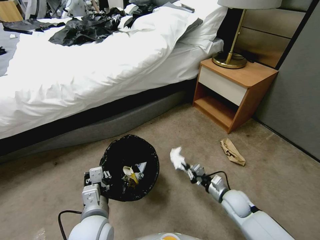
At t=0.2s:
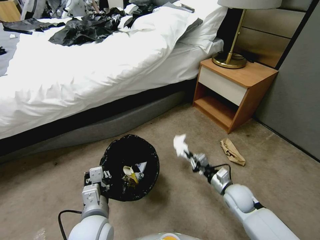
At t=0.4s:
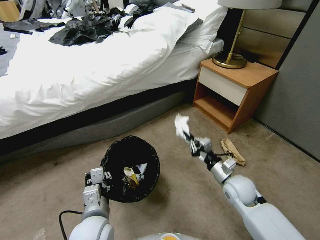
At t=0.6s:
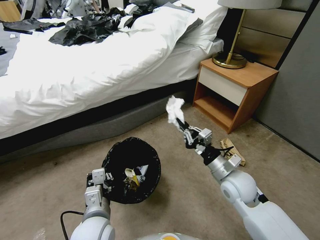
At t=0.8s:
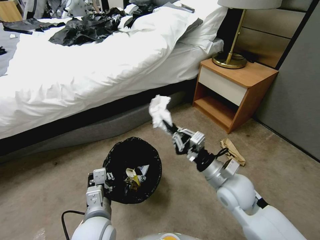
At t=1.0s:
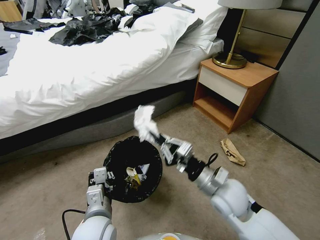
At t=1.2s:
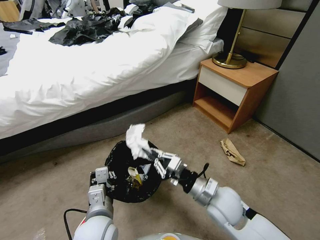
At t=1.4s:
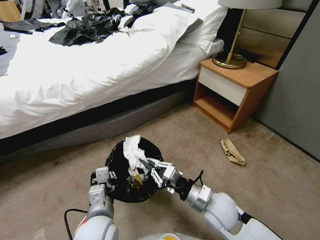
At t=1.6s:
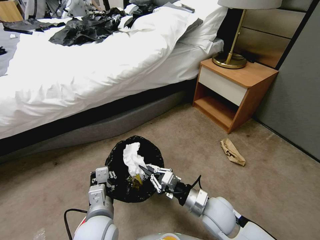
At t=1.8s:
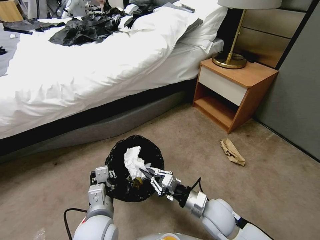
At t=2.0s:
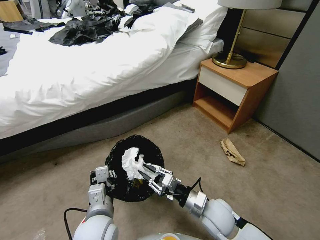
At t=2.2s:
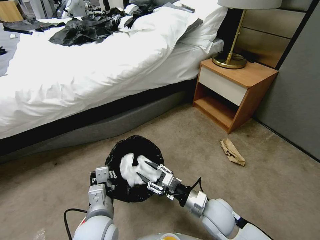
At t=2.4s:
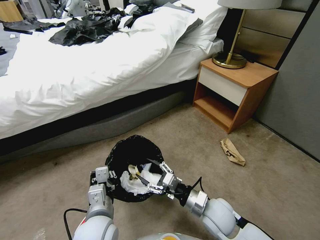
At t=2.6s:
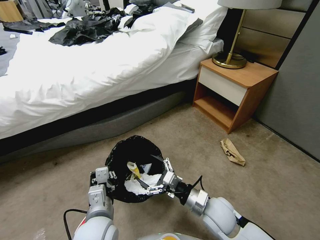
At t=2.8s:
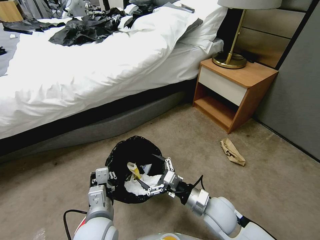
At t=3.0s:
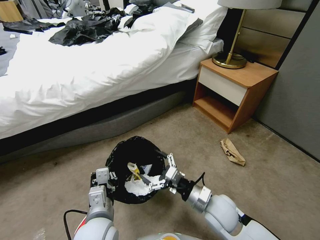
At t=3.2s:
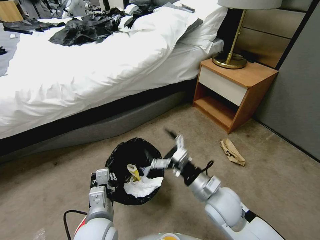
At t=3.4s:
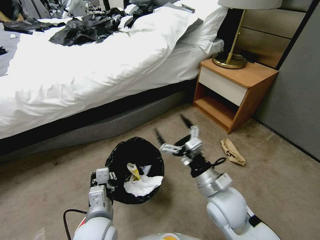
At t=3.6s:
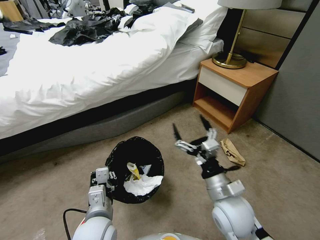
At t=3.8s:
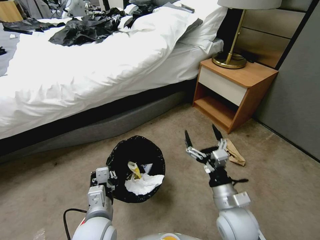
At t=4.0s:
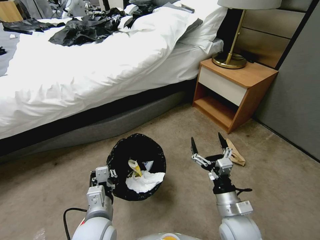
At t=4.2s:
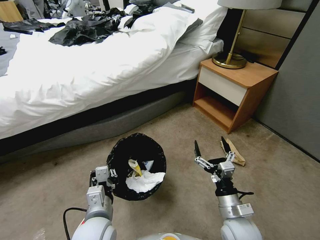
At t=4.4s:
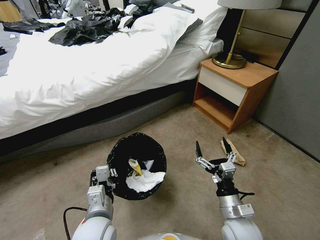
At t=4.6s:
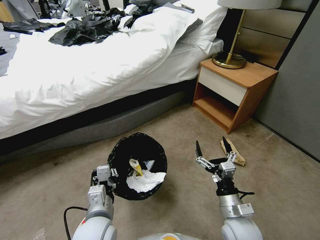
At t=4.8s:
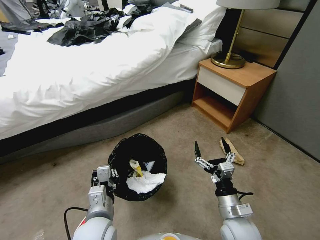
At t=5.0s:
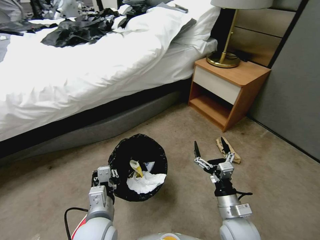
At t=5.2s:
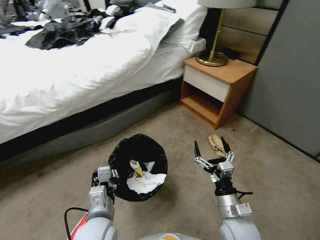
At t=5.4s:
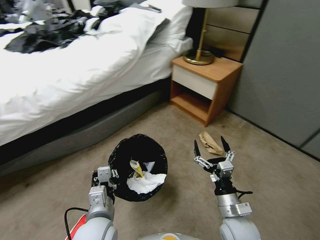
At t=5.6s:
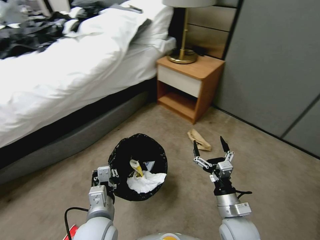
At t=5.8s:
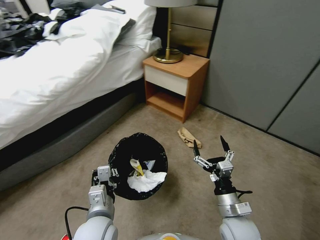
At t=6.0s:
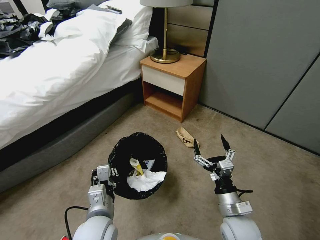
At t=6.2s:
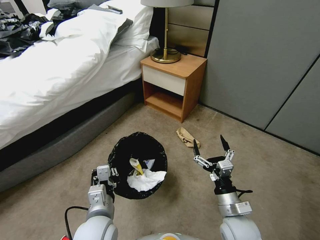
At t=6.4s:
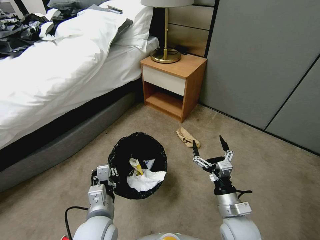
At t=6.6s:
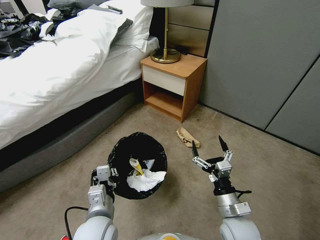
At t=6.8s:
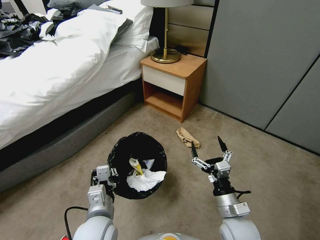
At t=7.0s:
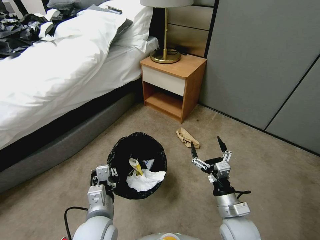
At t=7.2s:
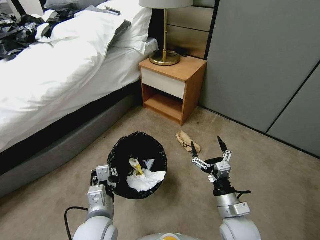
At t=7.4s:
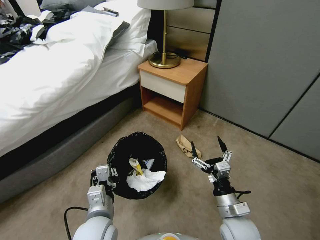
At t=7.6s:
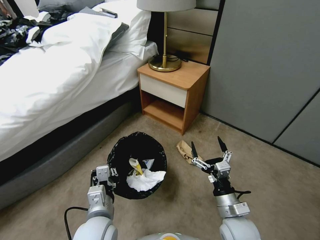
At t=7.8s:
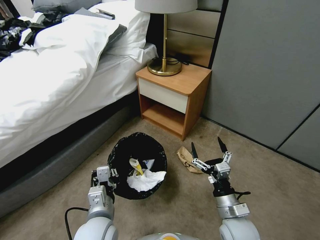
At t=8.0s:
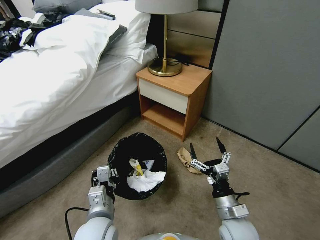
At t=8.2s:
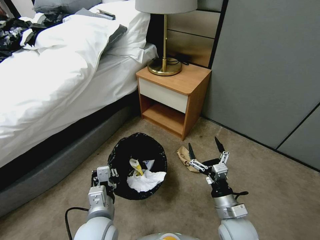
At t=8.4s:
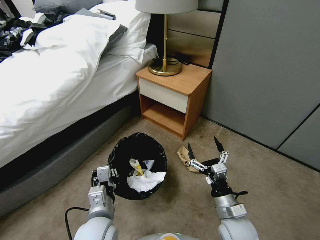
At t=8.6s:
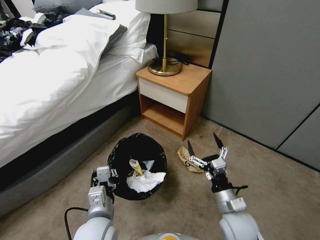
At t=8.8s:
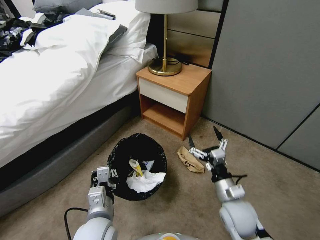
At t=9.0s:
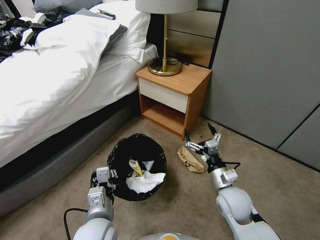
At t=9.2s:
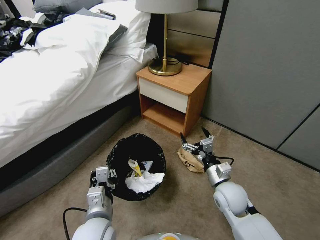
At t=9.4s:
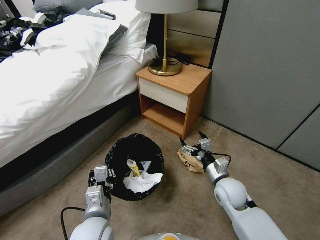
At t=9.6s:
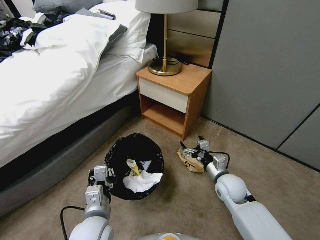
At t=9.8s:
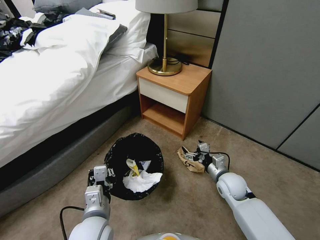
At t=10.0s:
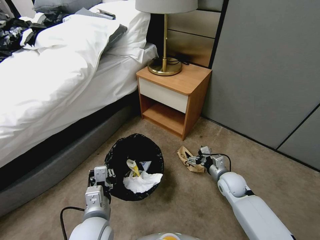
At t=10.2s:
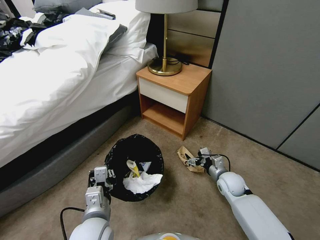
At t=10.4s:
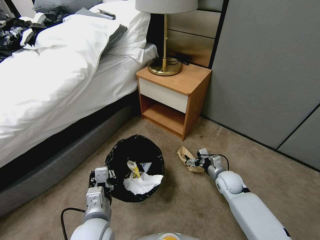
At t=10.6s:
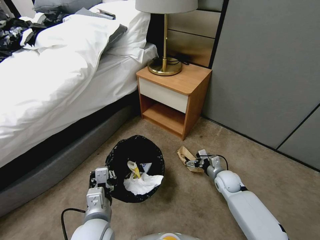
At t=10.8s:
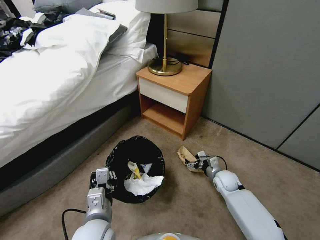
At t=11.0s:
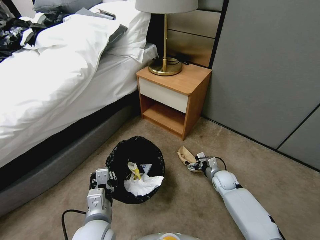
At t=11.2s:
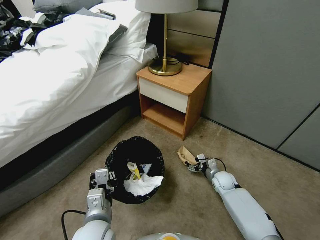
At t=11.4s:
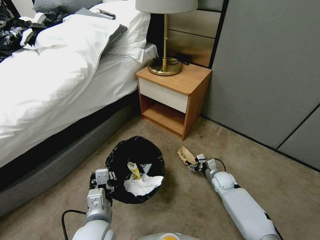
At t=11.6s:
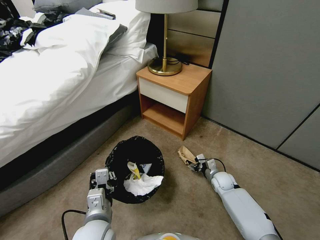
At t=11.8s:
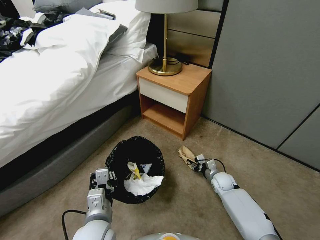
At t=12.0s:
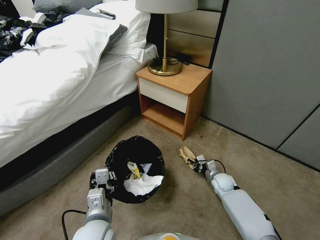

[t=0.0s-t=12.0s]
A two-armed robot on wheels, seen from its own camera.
Task of the whole recording: Pick up the trash bin, then pick up the garbage from the floor and place it into the trash bin.
t=0.0s to t=1.6s: The right gripper heads upward, to the left and backward, covering roughly 15 cm.
t=1.6s to t=3.0s: The right gripper opens its fingers.
t=3.0s to t=4.4s: The right gripper is displaced backward by roughly 5 cm, and moves approximately 10 cm upward and comes back.
t=7.6s to t=9.0s: The right gripper moves forward, roughly 10 cm.
t=9.0s to t=10.4s: The right gripper moves downward, forward and to the right, approximately 15 cm.
t=10.4s to t=12.0s: The right gripper is displaced downward by about 10 cm, and closes.

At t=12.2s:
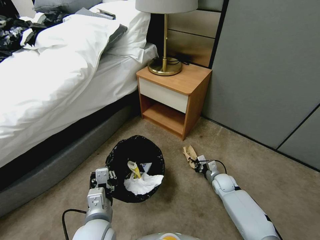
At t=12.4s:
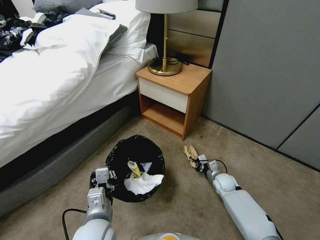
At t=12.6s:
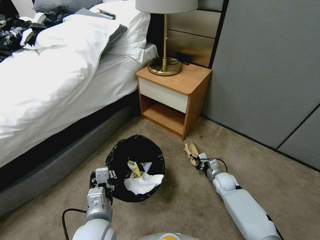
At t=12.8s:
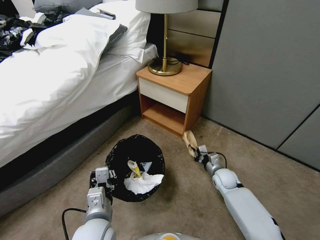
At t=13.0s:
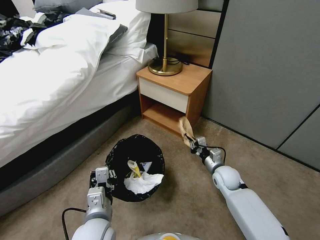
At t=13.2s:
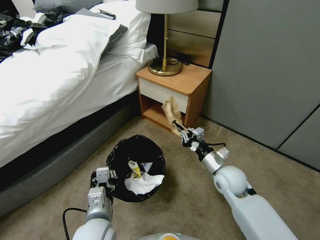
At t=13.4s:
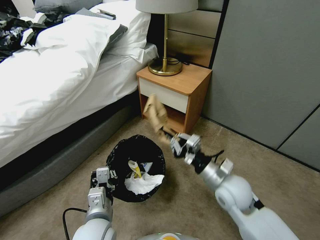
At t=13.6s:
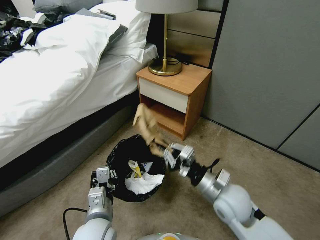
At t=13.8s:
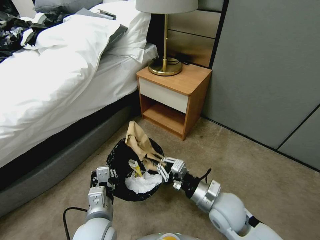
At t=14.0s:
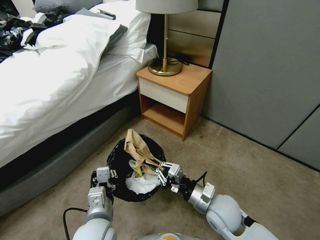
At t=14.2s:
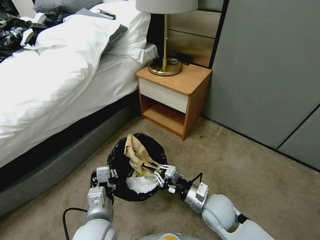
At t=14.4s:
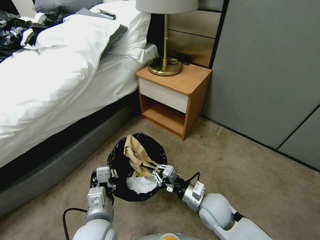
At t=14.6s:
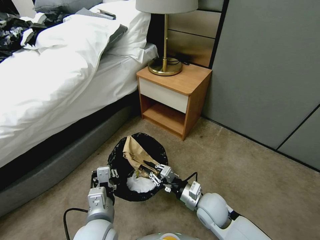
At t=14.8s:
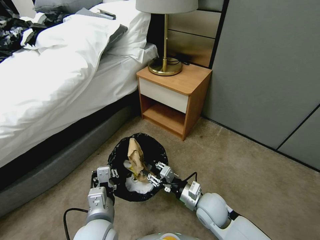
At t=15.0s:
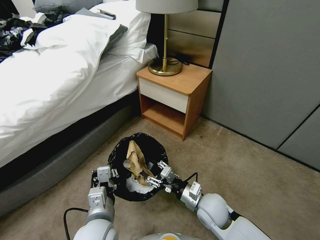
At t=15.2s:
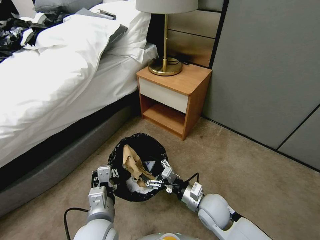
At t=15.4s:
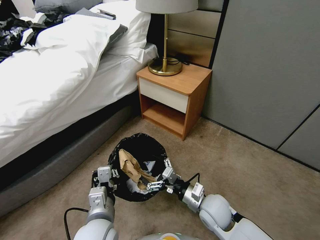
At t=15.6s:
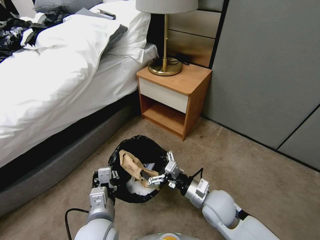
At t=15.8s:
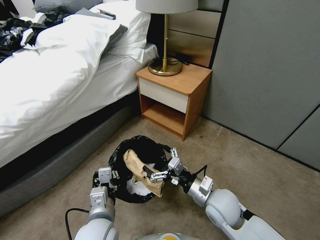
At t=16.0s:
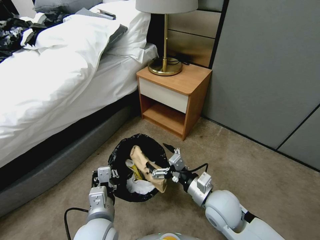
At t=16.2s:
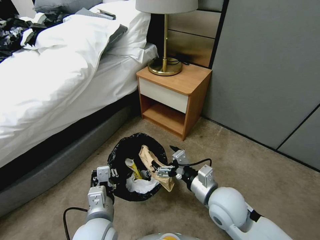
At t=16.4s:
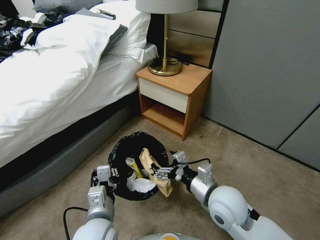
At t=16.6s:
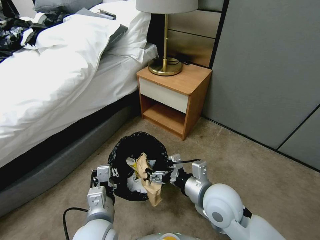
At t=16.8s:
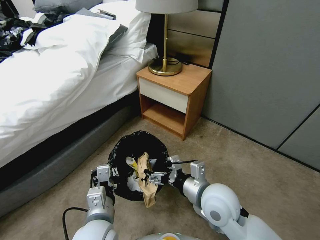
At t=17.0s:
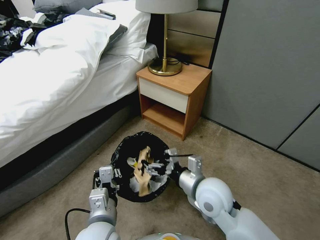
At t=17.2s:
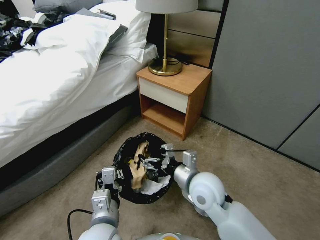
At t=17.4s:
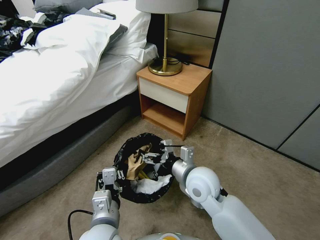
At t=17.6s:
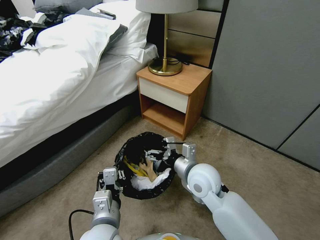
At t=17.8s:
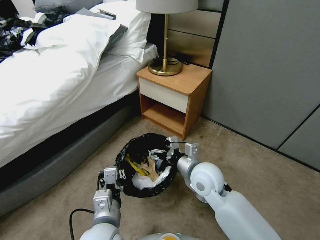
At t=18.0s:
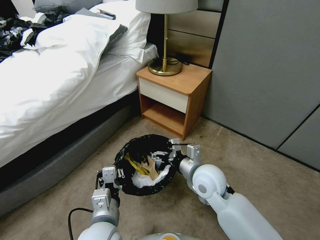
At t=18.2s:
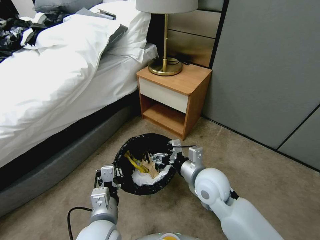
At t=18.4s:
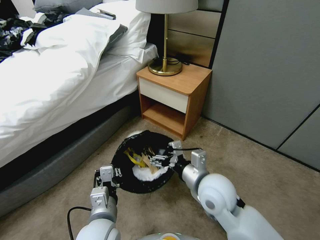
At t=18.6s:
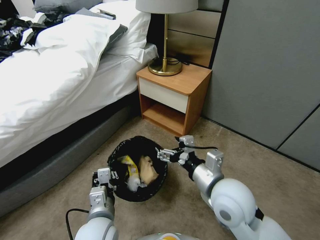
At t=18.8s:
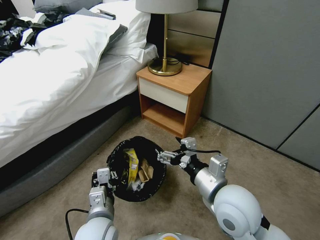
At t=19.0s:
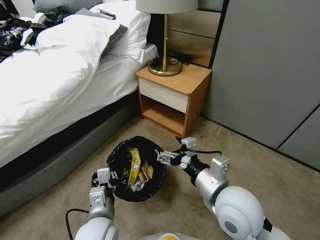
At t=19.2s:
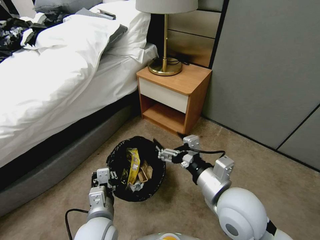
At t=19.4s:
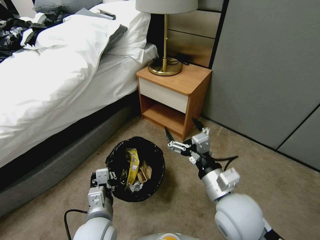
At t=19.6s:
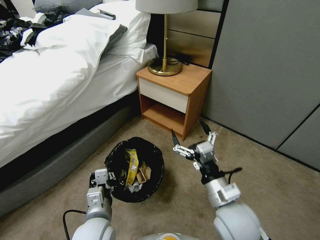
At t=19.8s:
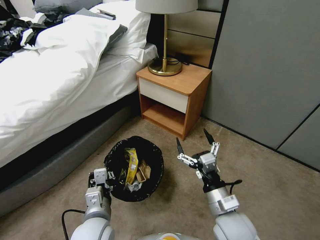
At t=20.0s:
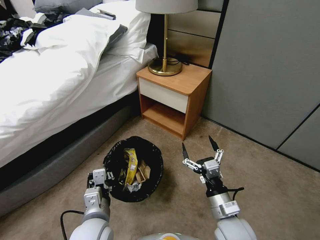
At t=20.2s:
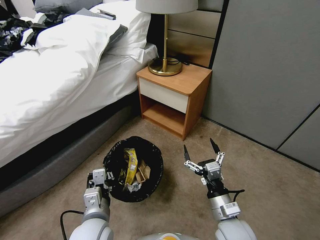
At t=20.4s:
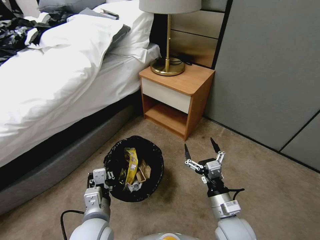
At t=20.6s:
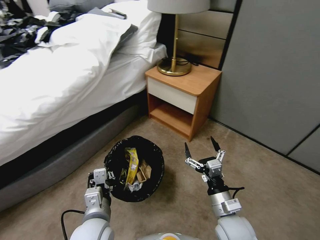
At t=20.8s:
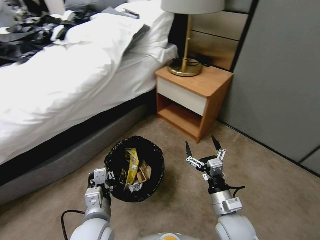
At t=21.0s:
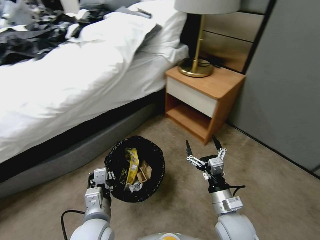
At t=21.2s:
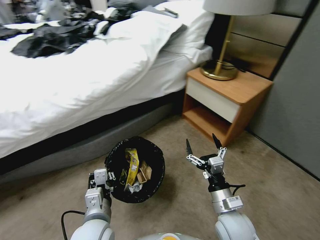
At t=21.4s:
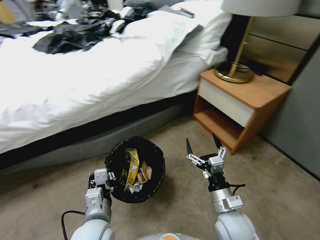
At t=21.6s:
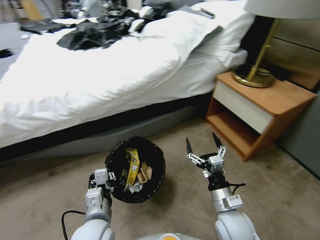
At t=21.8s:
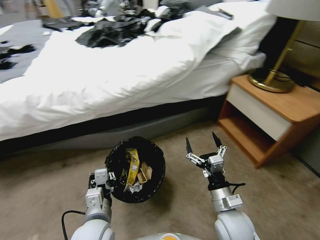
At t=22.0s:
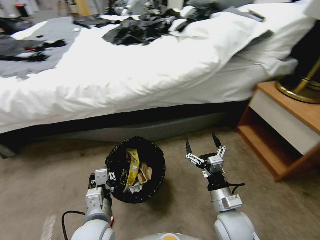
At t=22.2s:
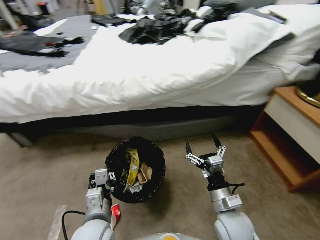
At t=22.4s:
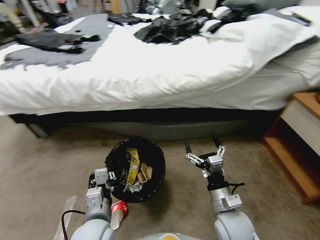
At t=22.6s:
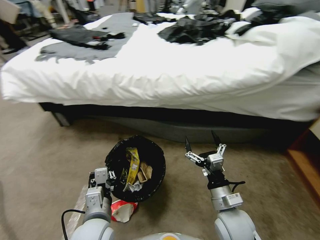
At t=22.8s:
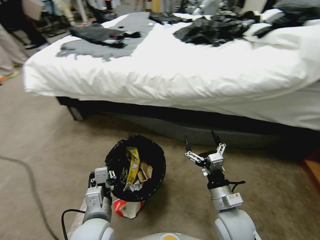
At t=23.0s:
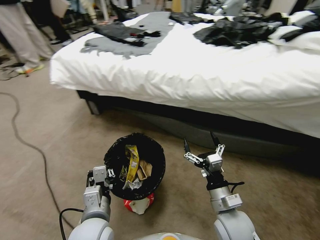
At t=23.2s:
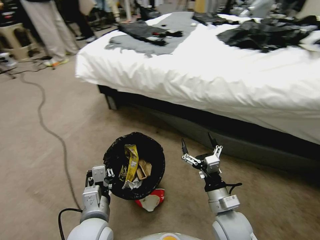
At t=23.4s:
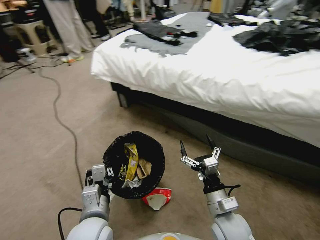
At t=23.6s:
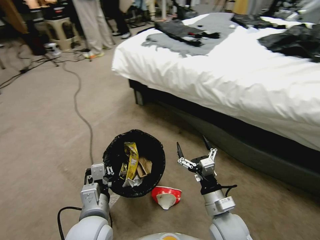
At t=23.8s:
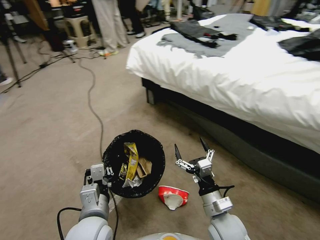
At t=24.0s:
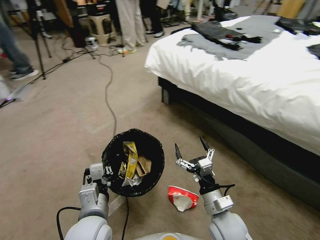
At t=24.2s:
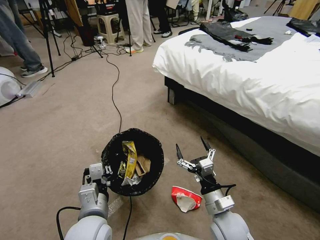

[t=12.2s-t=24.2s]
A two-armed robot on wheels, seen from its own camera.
Task of the whole recording: Pick up the trash bin, then pick up the garbage from the floor and place it into the trash bin.
t=12.2s to t=13.8s: The right gripper goes roughly 25 cm upward, backward and to the left.
t=13.8s to t=15.2s: The right gripper is displaced downward by some 5 cm, and opens.
t=15.2s to t=16.6s: The right gripper is displaced upward by about 15 cm.
t=16.6s to t=18.2s: The right gripper shifts about 5 cm forward.
t=18.2s to t=19.8s: The right gripper is displaced backward by about 10 cm.
